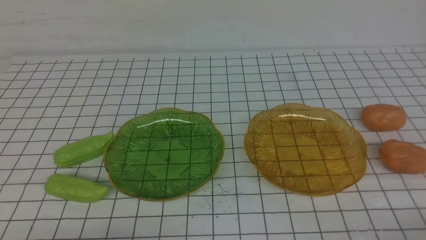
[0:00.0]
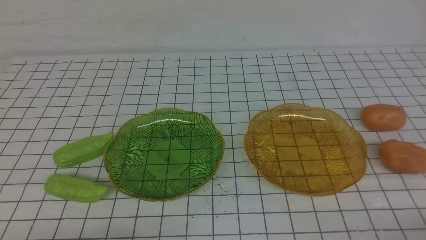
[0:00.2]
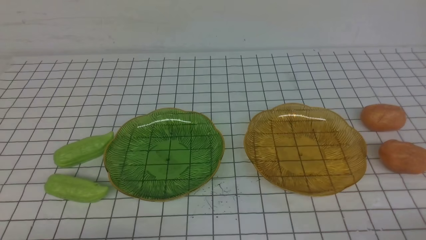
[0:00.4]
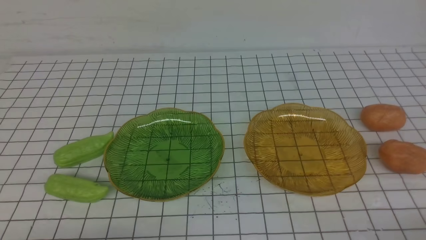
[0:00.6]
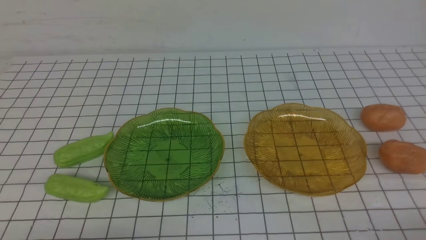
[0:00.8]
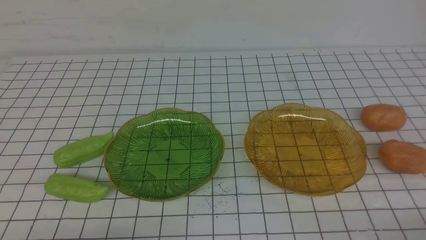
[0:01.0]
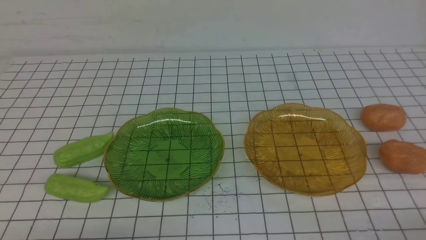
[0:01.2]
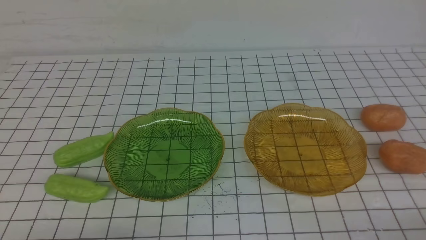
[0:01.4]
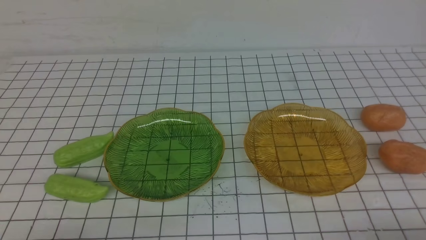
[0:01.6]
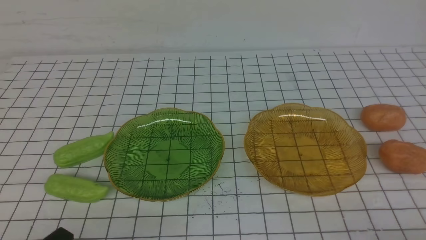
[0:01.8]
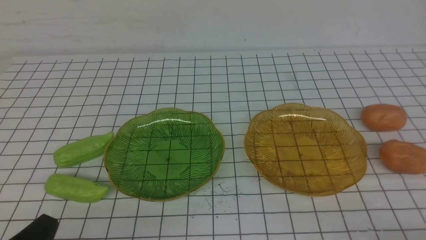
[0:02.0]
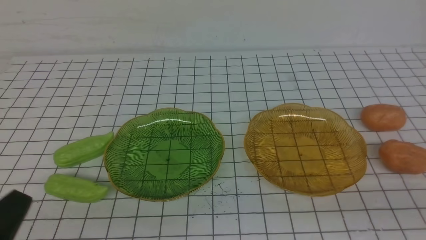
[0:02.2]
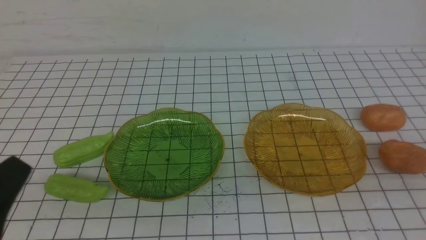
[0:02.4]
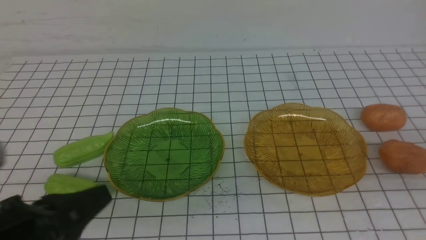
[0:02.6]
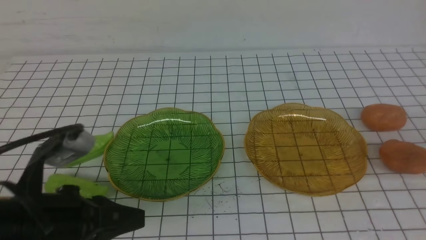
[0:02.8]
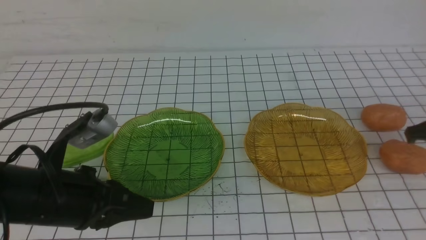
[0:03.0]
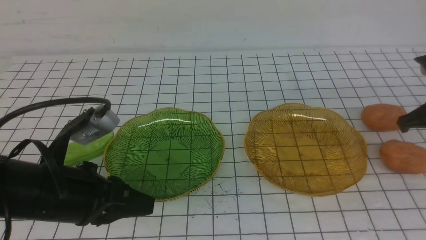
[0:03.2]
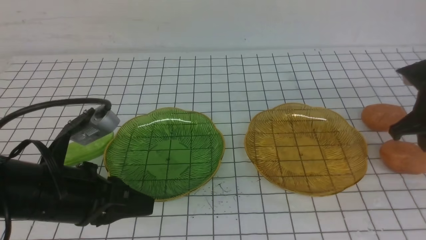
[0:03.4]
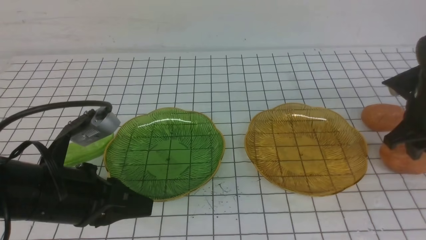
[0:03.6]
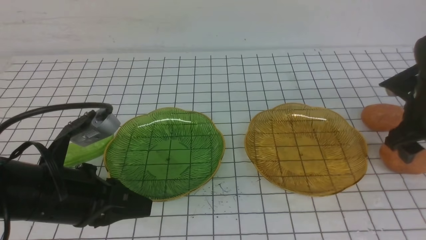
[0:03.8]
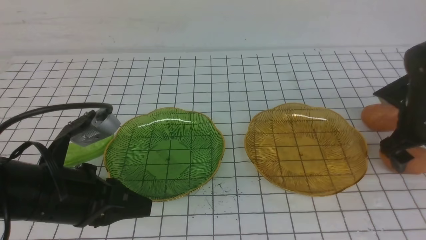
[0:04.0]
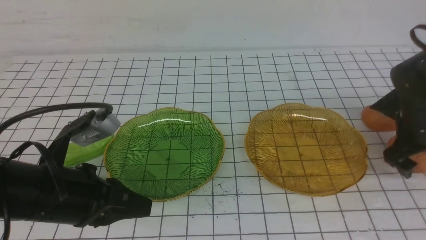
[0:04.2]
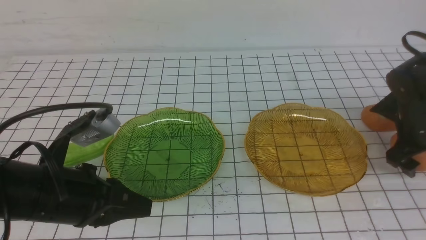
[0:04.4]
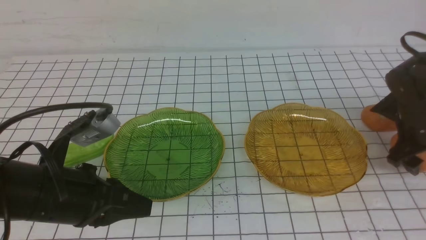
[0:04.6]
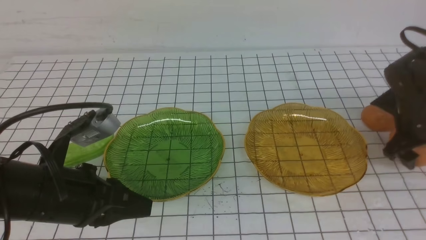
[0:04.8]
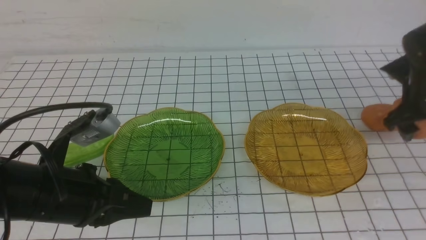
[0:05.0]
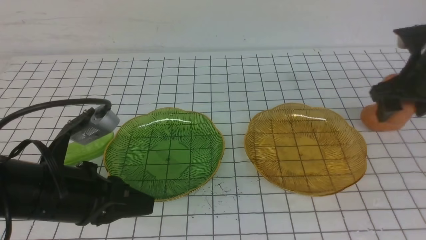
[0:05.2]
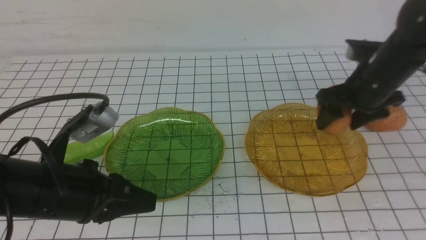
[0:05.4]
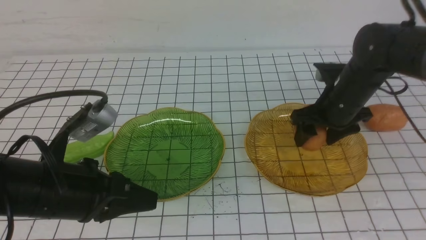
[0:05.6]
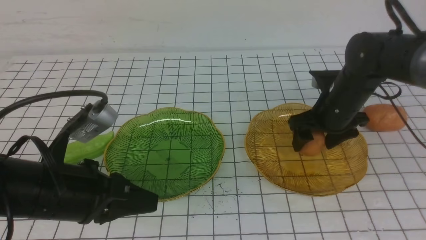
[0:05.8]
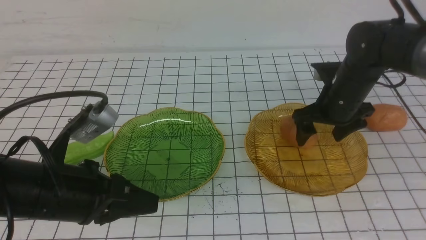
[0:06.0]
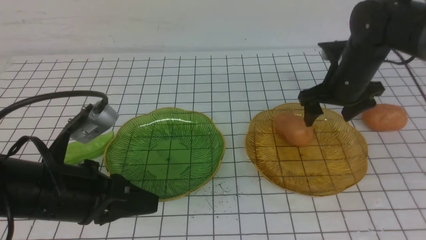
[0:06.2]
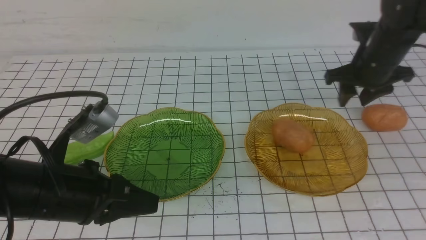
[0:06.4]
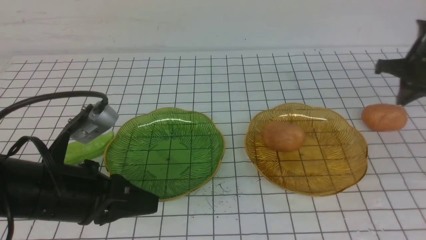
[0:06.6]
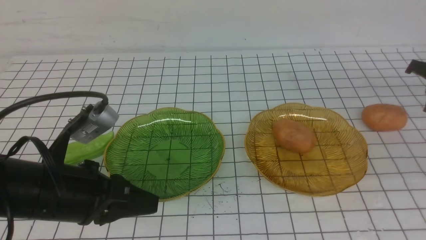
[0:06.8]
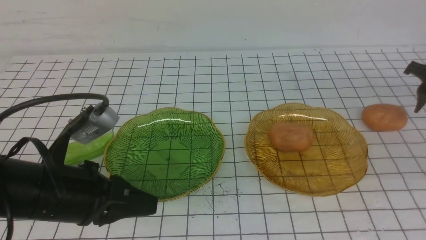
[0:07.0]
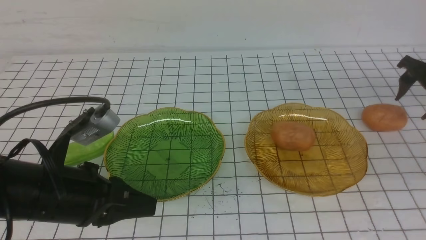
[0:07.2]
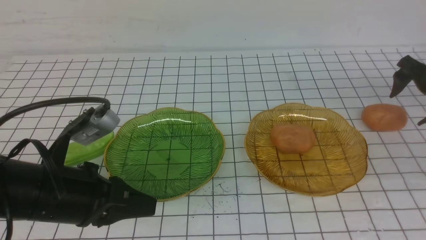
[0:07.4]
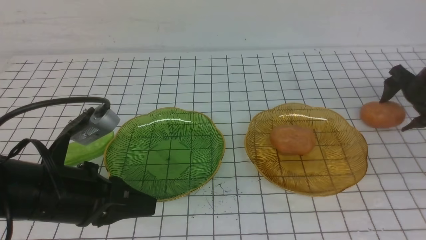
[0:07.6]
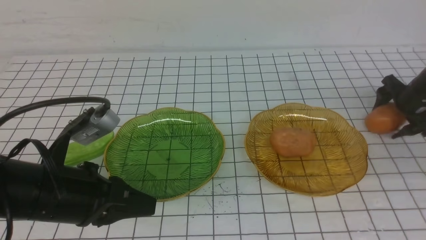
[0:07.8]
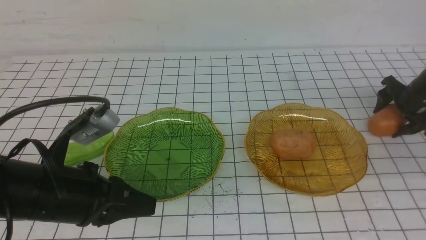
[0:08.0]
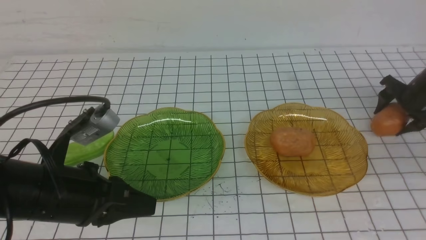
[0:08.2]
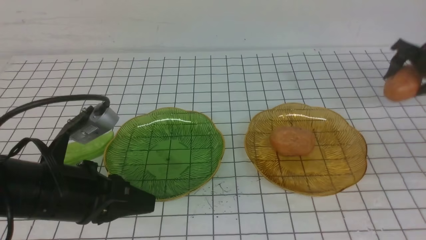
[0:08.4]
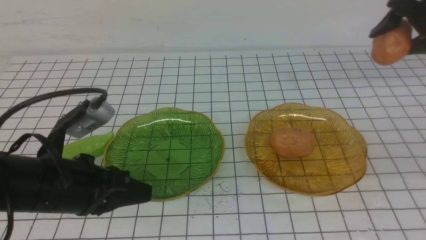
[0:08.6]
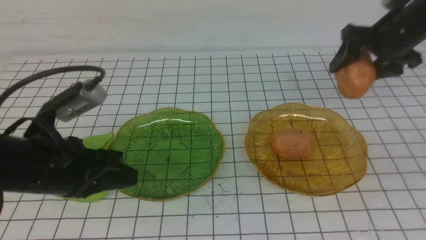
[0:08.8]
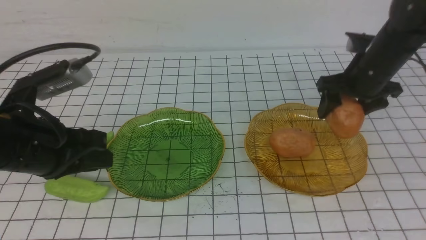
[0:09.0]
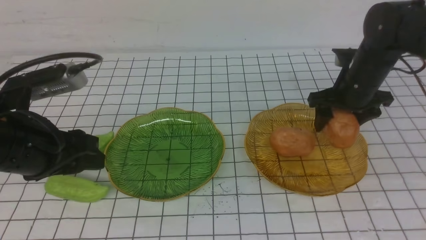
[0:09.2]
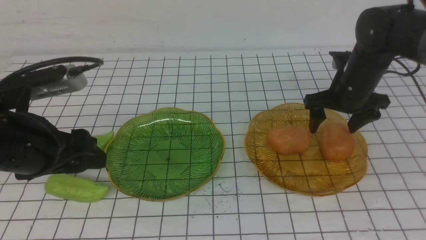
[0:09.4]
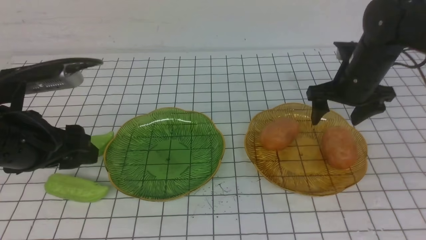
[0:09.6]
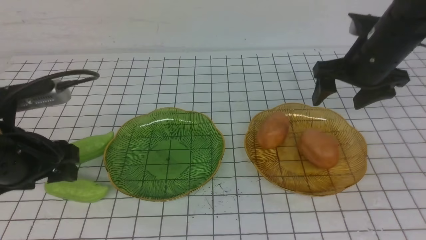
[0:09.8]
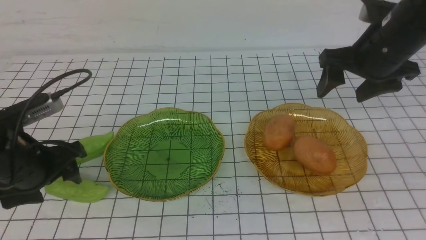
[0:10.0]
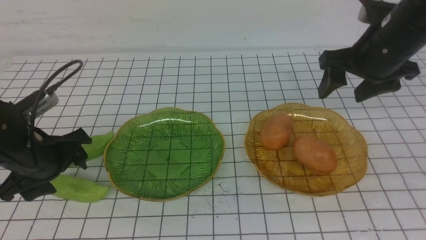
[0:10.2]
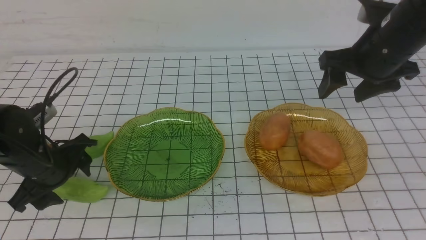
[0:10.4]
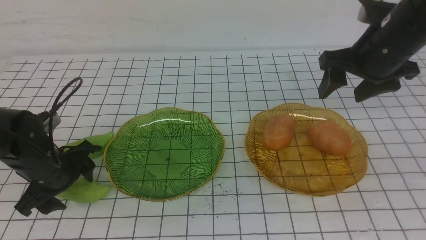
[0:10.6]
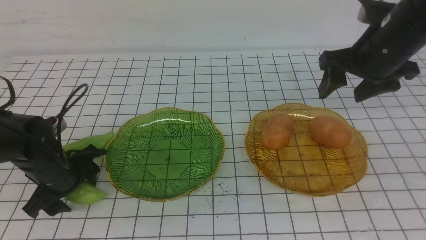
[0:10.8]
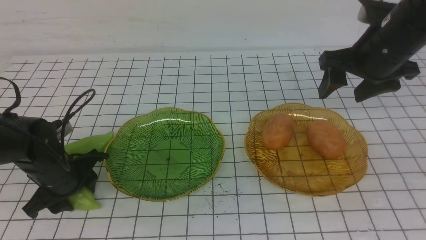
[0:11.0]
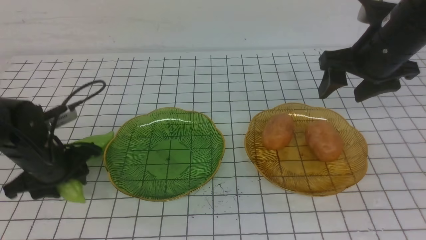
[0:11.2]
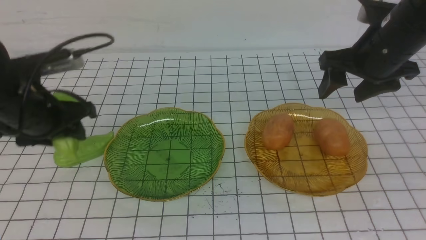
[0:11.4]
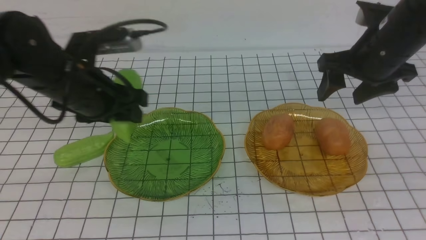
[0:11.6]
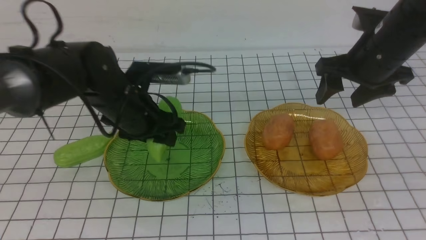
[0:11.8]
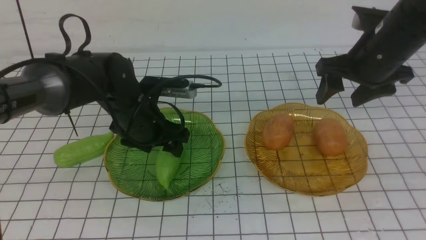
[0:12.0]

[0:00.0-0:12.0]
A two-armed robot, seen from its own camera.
Step, 0:00.0 to 0:09.4: Grab a potato with your right arm and put it on the right plate.
0:01.6 to 0:03.0: The right gripper goes about 25 cm forward; the left gripper shifts approximately 15 cm forward, upward and to the right.
0:03.0 to 0:04.4: The right gripper heads downward and forward, covering approximately 15 cm, and opens.
0:04.4 to 0:06.0: The right gripper heads to the left and upward, covering approximately 15 cm.
0:06.0 to 0:07.6: The right gripper goes some 20 cm to the right, and closes and opens again.
0:07.6 to 0:09.0: The right gripper goes roughly 15 cm to the left and upward, while the left gripper shifts by roughly 5 cm, and opens.
0:09.0 to 0:10.4: The left gripper is displaced downward and forward by about 10 cm, and opens; the right gripper heads upward and backward, covering some 10 cm.
0:10.4 to 0:12.0: The left gripper goes approximately 15 cm to the right and forward.

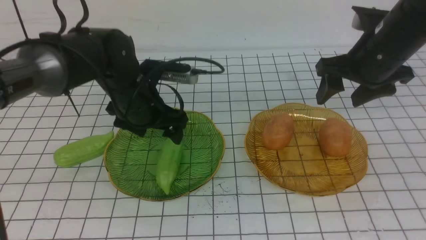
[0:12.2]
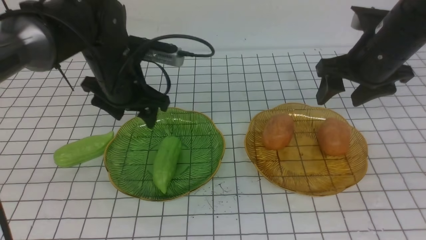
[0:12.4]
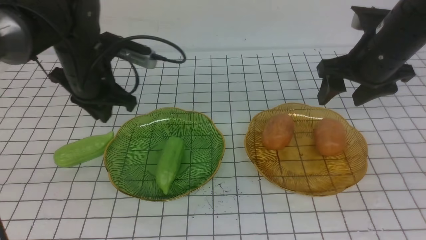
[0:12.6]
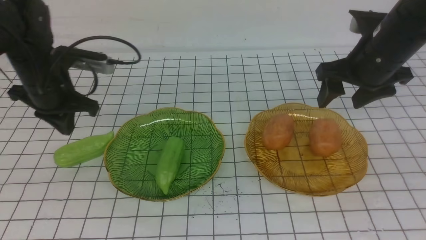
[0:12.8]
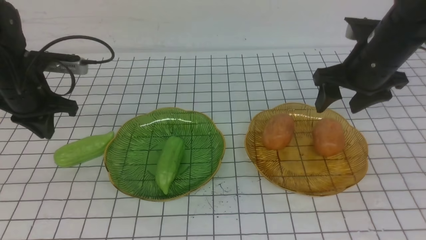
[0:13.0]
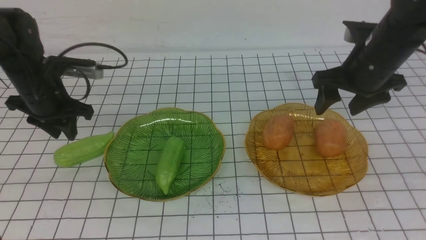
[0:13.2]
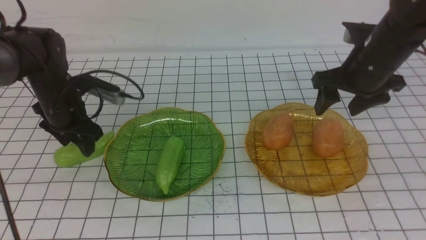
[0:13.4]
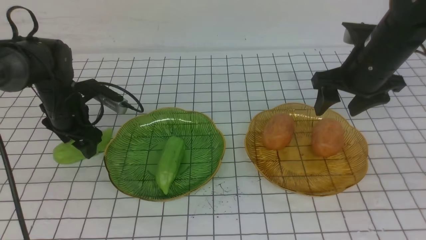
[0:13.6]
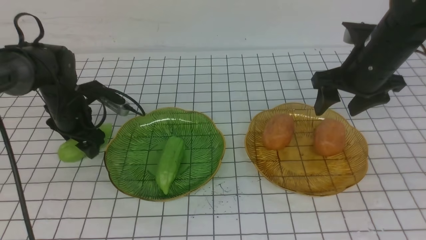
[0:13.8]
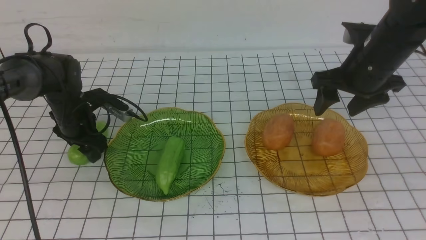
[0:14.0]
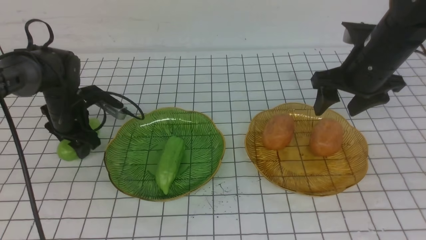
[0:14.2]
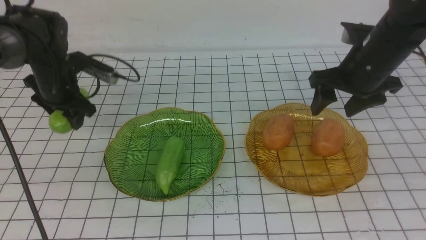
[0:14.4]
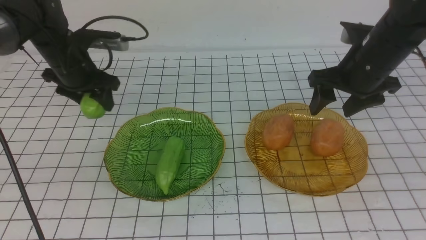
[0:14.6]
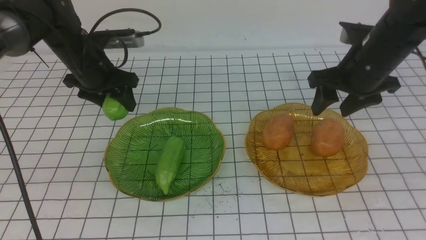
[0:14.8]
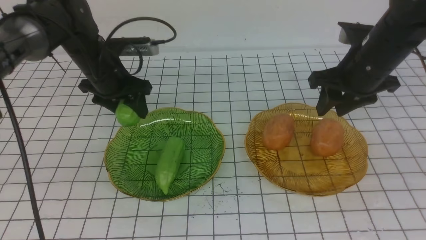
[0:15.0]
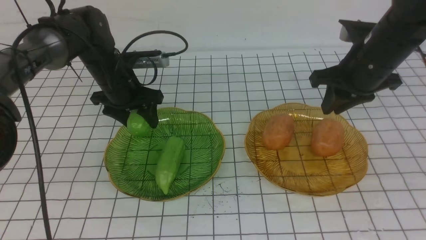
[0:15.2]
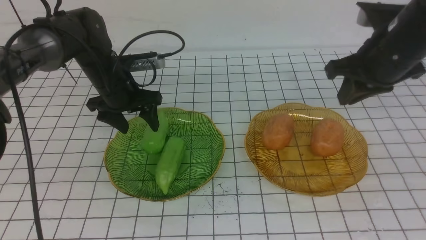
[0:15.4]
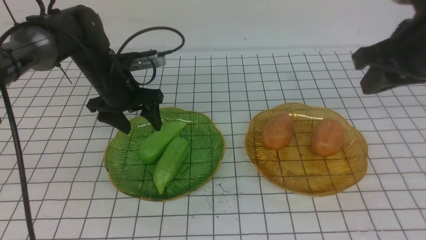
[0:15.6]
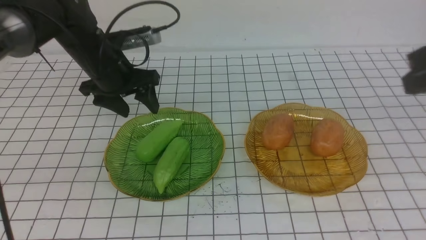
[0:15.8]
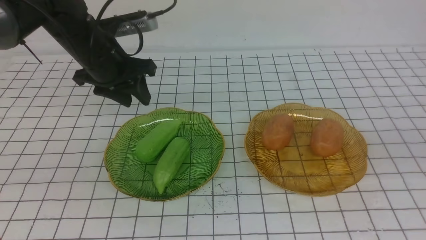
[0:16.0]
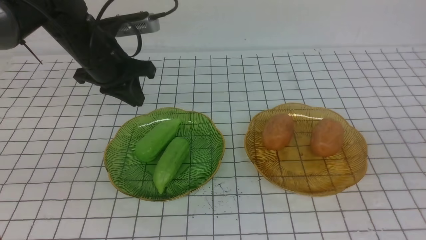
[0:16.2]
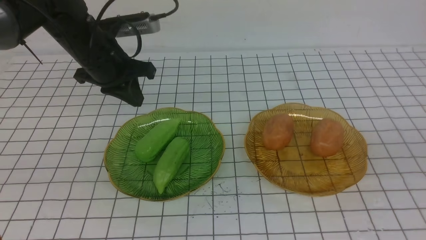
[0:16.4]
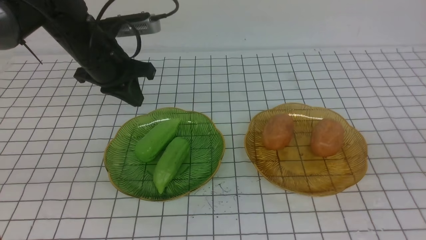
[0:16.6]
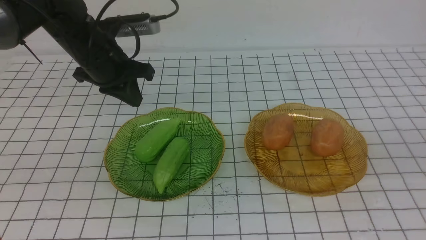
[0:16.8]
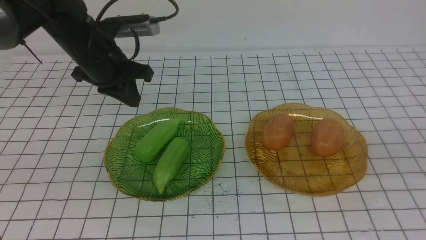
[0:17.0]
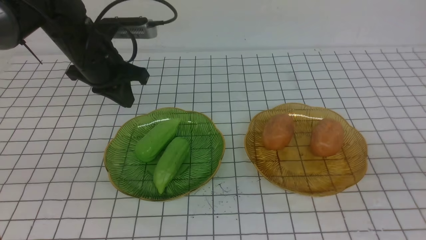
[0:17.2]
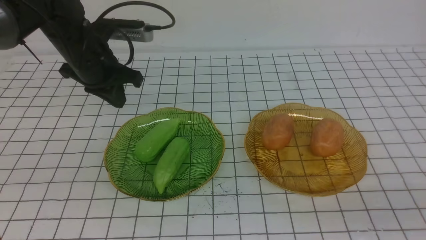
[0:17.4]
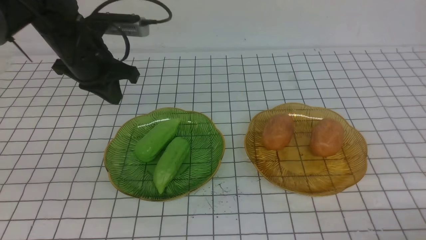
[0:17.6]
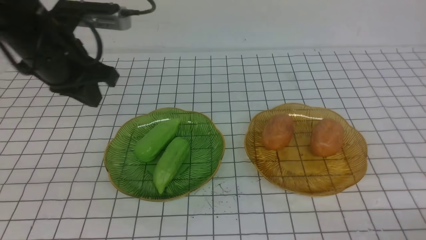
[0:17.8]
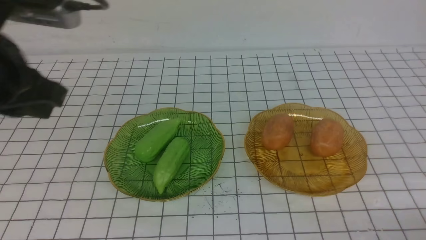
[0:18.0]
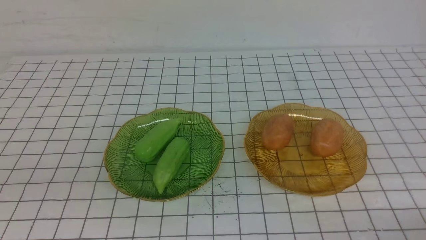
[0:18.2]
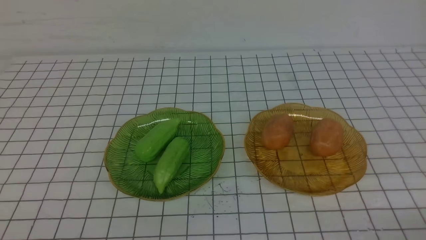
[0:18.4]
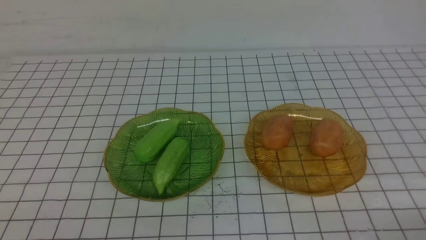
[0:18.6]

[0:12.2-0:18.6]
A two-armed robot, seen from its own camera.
Step, 0:12.2 to 0:15.4: use the left arm to grab a chayote and put it into the left plate.
0:12.2 to 0:13.8: The left gripper travels to the left and downward by roughly 15 cm, and closes, then opens again.
0:13.8 to 0:15.4: The right gripper moves upward and backward, roughly 10 cm, and closes; the left gripper is displaced to the right and upward by some 10 cm.
0:15.4 to 0:17.0: The left gripper moves upward, some 5 cm, and closes up; the right gripper moves backward, about 25 cm.
0:17.0 to 0:18.6: The left gripper heads backward, covering about 40 cm; the right gripper goes about 15 cm downward.
